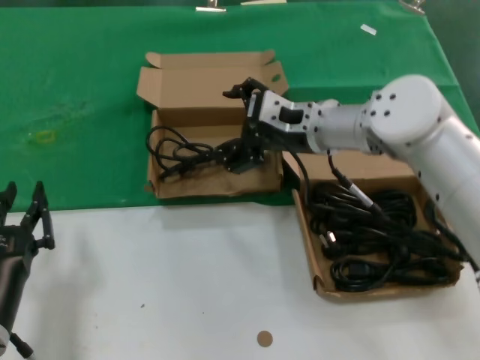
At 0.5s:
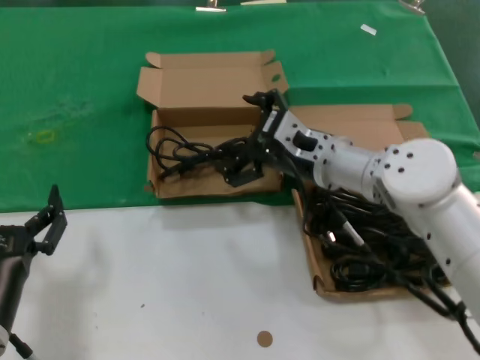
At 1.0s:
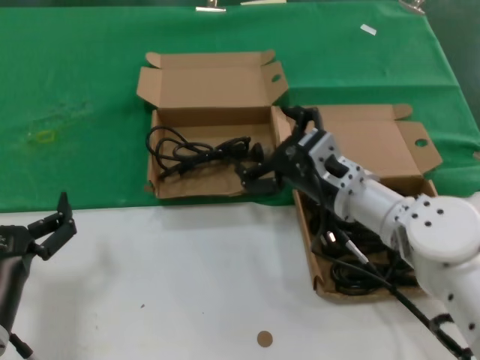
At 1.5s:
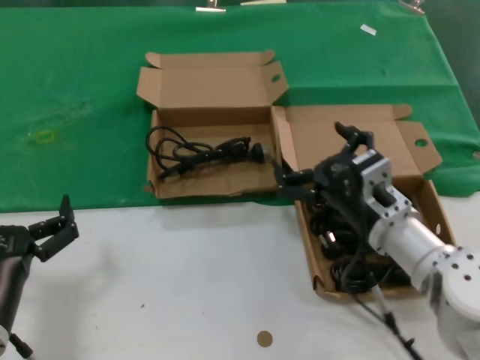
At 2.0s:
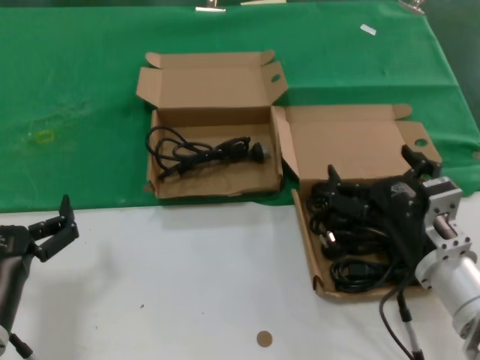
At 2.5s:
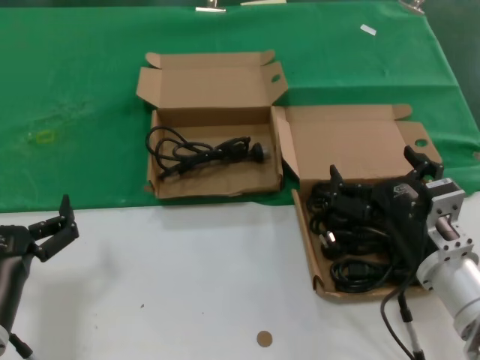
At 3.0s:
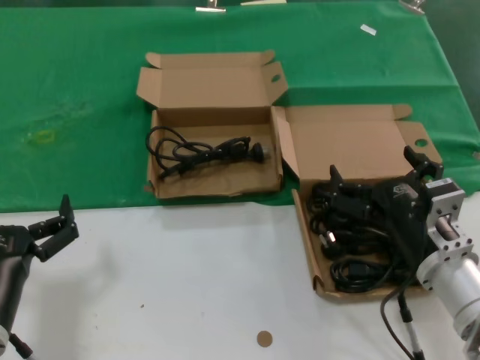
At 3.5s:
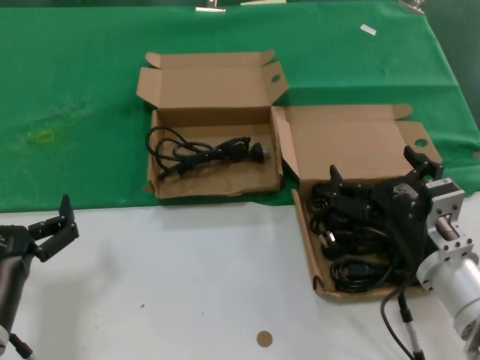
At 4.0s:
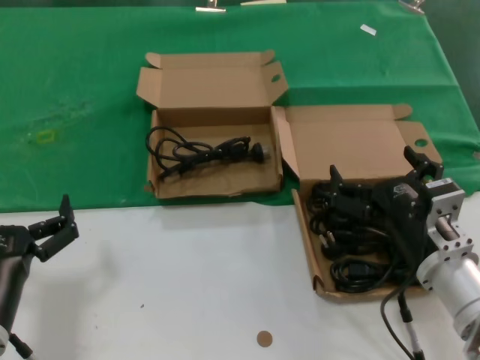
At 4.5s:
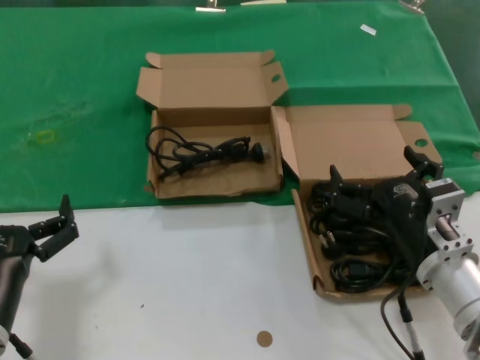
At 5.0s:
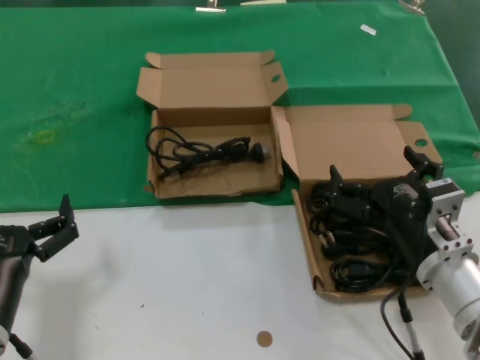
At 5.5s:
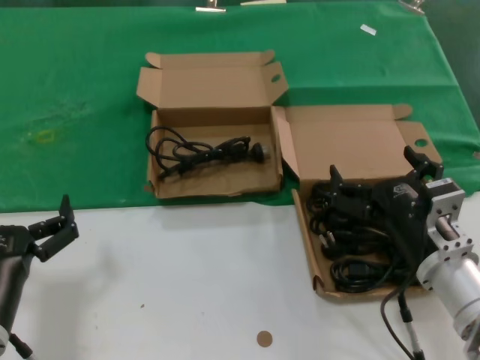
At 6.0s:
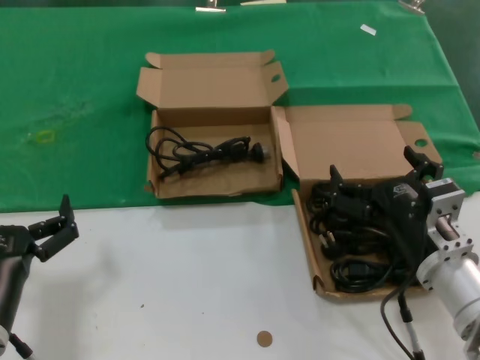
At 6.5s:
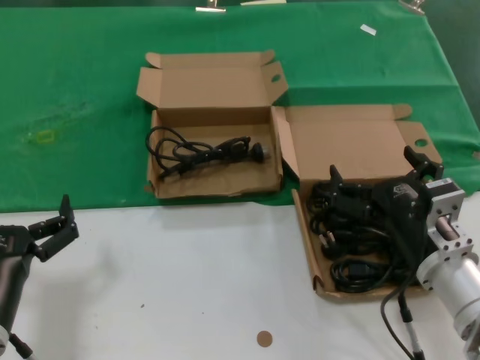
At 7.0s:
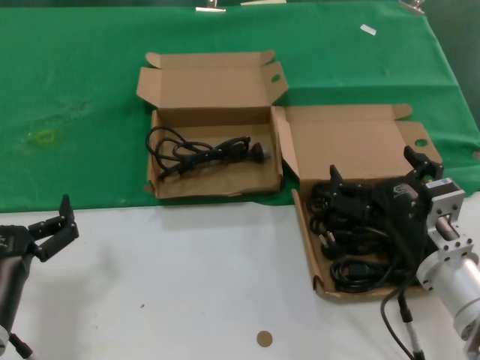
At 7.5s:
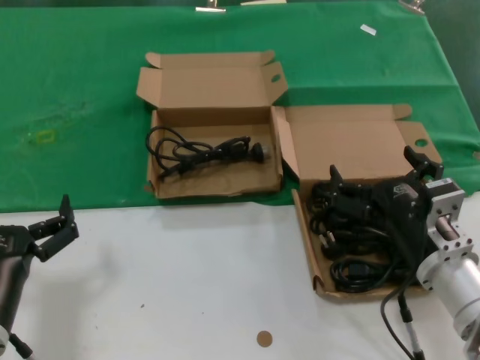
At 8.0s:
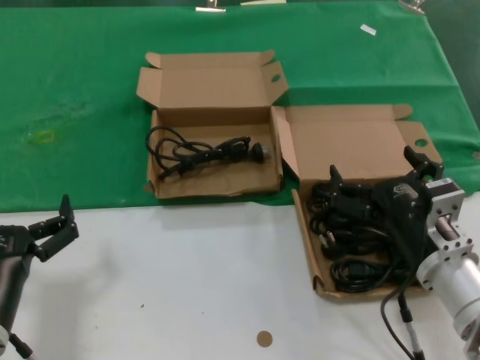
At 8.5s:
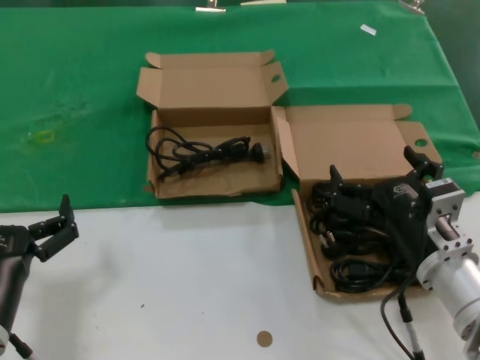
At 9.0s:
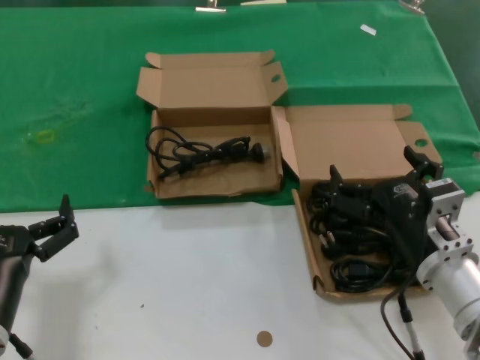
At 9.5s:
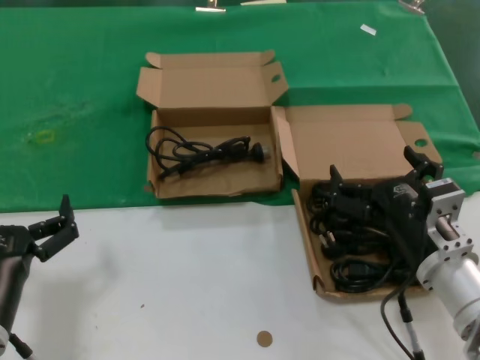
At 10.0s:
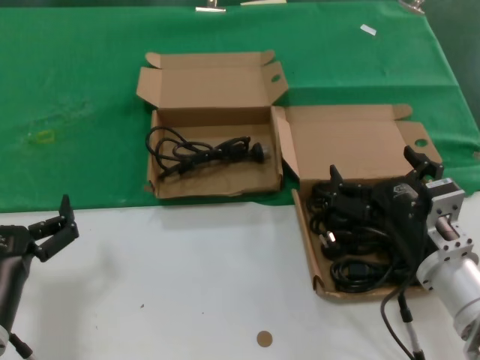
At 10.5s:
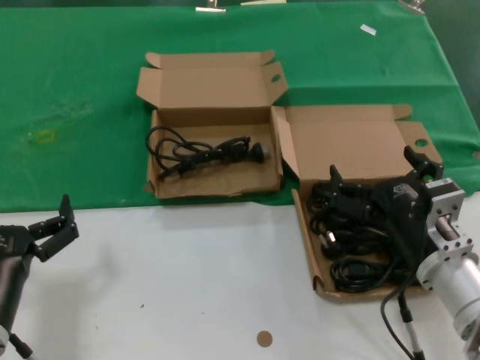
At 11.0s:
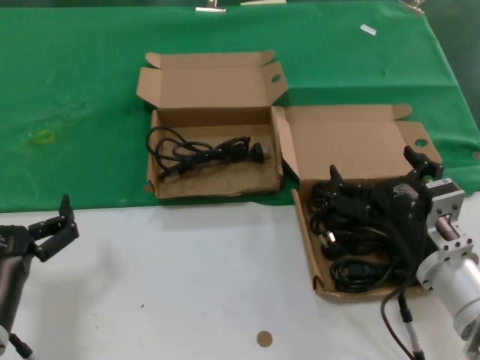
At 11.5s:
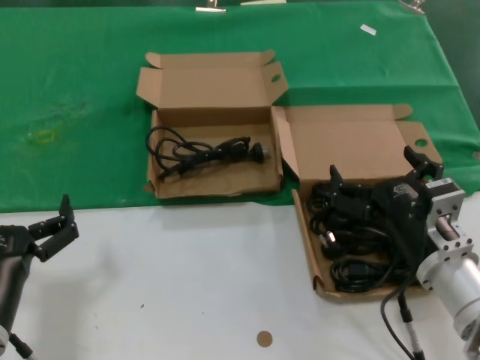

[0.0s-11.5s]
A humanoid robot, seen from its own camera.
Task of the whole recording: take the parts from the box containing them and put them into an empty box.
0.0s to 2.0s: The right hand heads backward and downward, covering roughly 25 cm.
2.0s to 11.5s: Both hands stay about where they are.

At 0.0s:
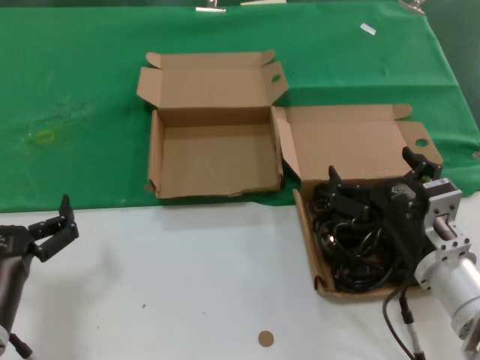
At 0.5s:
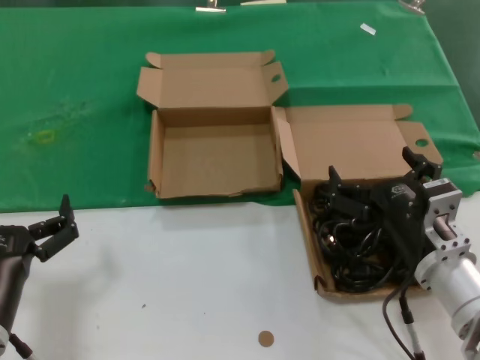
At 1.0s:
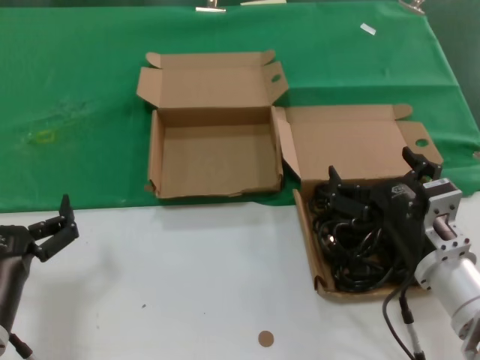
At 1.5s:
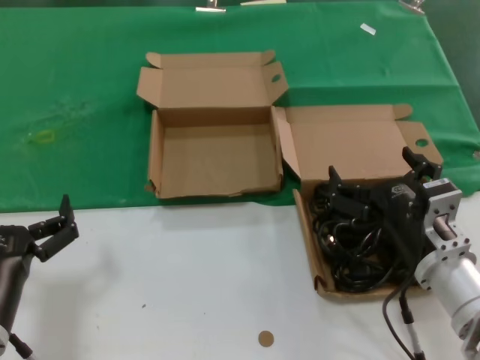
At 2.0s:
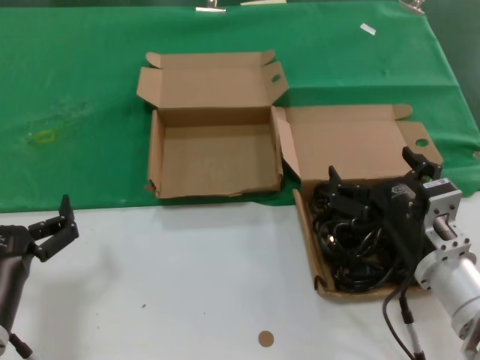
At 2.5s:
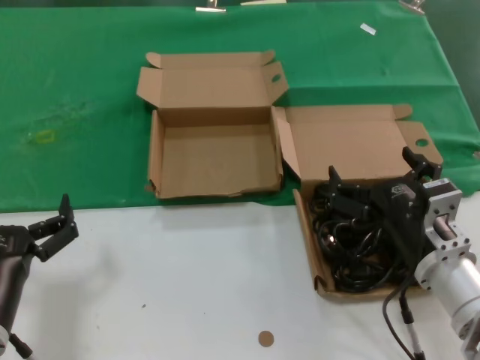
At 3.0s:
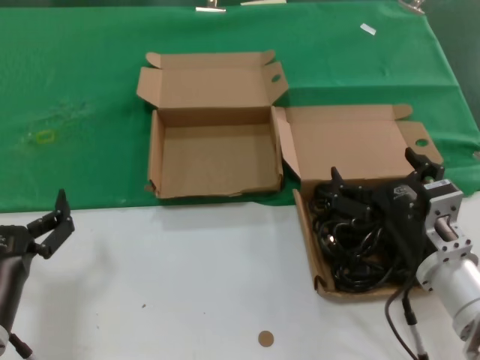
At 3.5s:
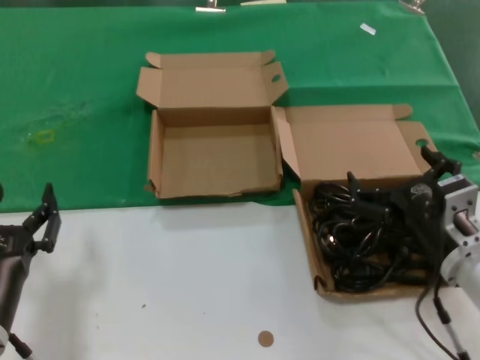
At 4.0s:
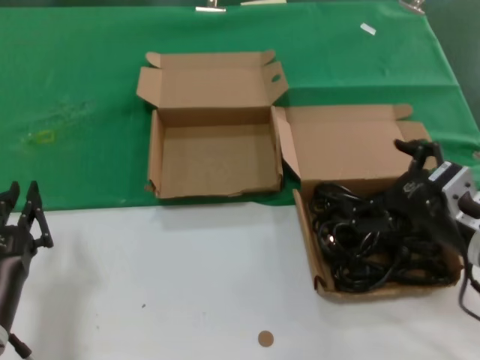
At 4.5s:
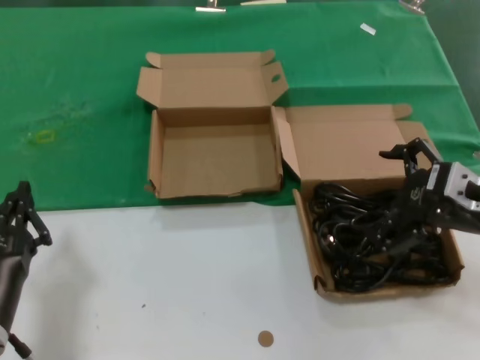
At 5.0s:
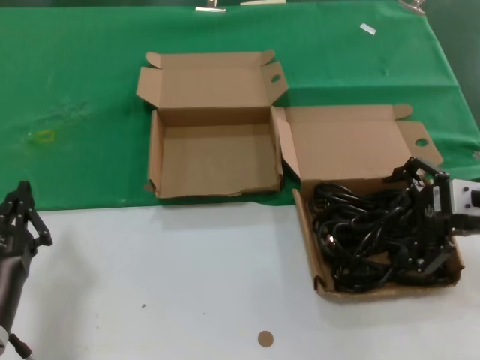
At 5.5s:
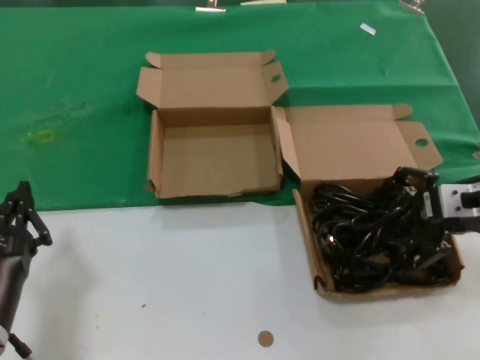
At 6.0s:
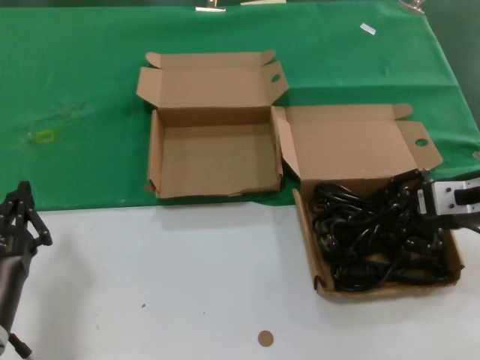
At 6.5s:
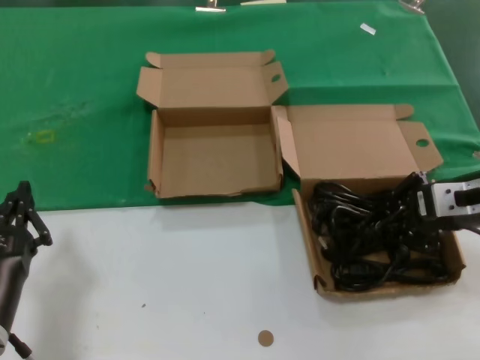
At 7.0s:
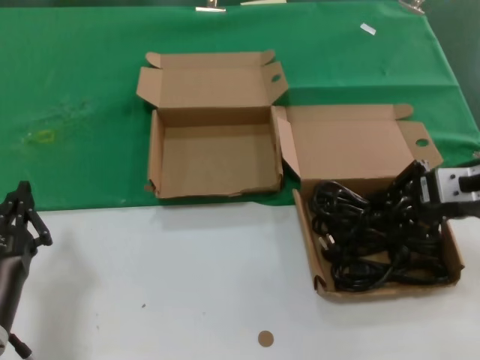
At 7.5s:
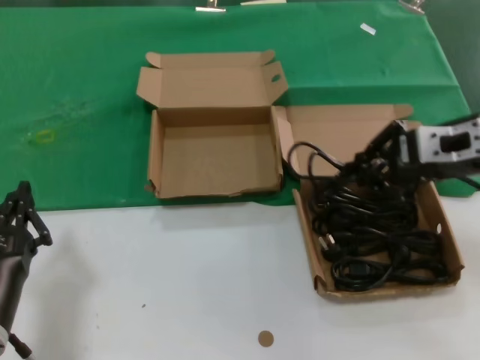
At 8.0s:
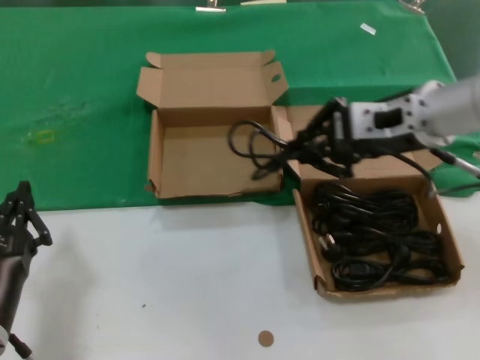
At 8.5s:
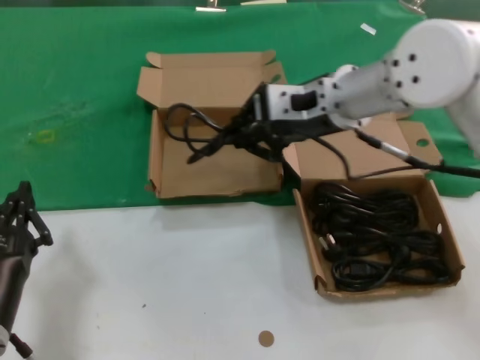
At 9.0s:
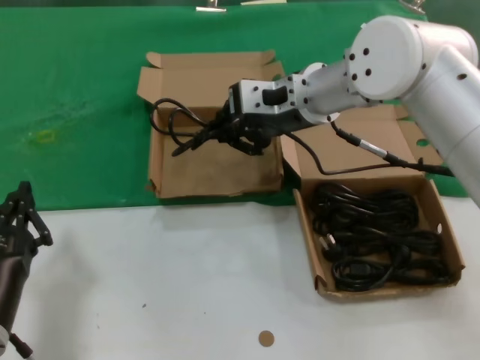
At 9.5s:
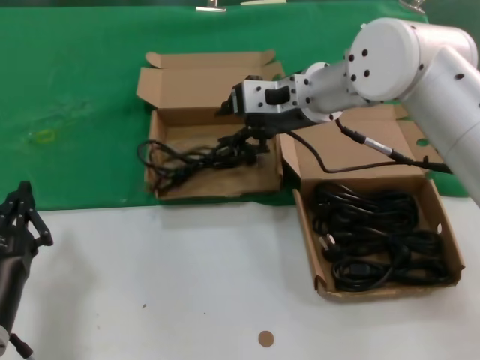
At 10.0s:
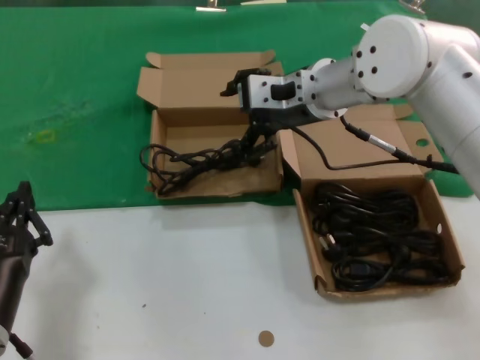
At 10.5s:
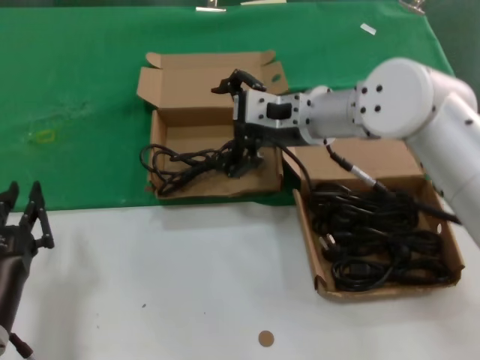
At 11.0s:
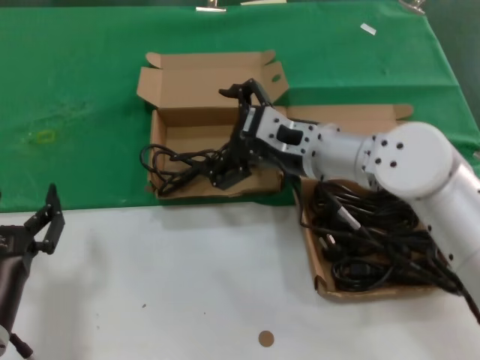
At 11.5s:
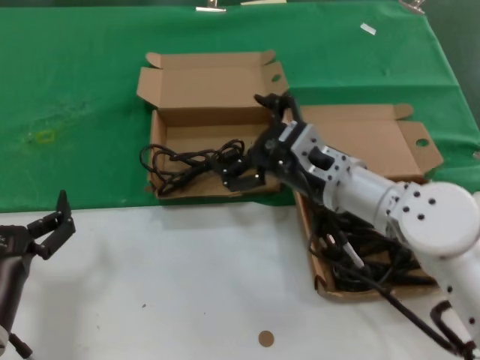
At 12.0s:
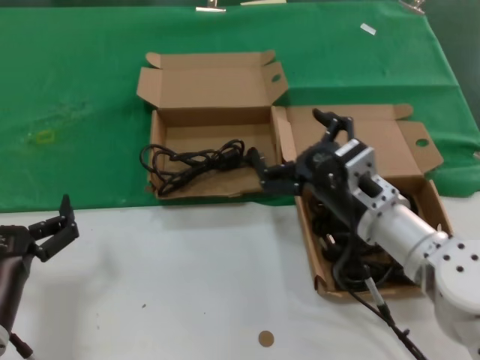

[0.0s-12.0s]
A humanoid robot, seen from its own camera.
Task of the whole recording: take the parts from the box containing them and put them into an empty box.
Step, 0.0s to 6.5s: Grasp the data cable.
Step, 7.0s to 9.5s: Place the data cable in the another box.
0.0s to 2.0s: Both hands stay put.
2.0s to 4.0s: The right hand shifts some 10 cm to the right and upward.
4.0s to 6.0s: The right hand moves forward and upward, some 10 cm.
6.0s to 8.0s: The right hand shifts about 15 cm to the left and upward.
8.0s to 10.0s: The right hand shifts approximately 15 cm to the left and forward.
10.0s to 12.0s: The right hand shifts approximately 20 cm downward and backward.

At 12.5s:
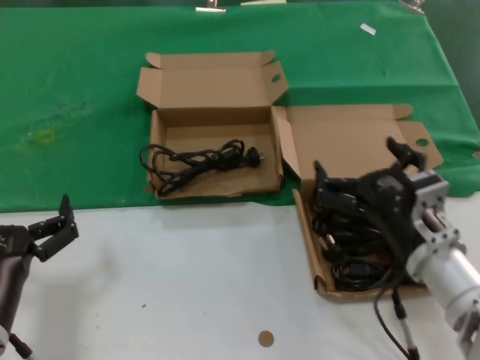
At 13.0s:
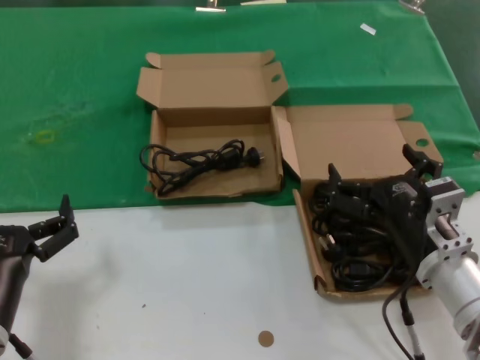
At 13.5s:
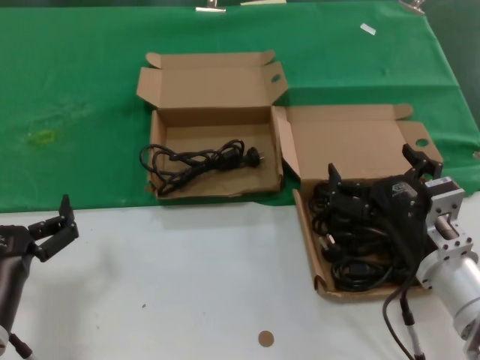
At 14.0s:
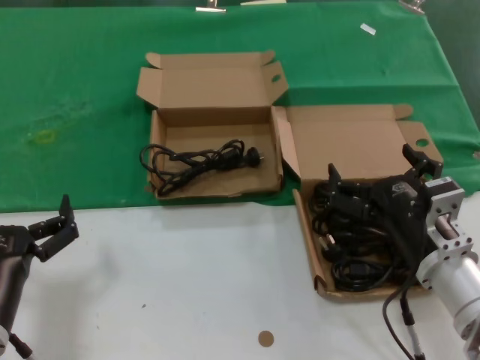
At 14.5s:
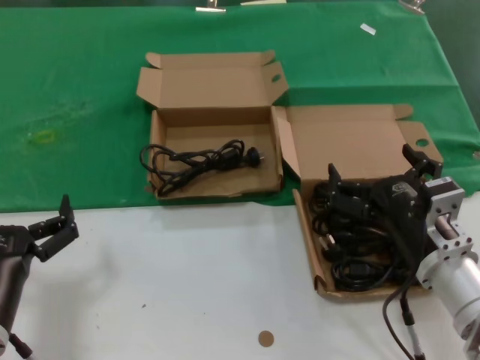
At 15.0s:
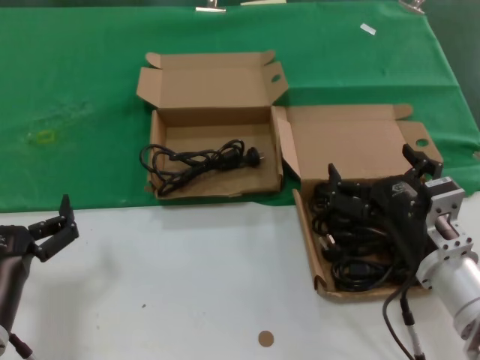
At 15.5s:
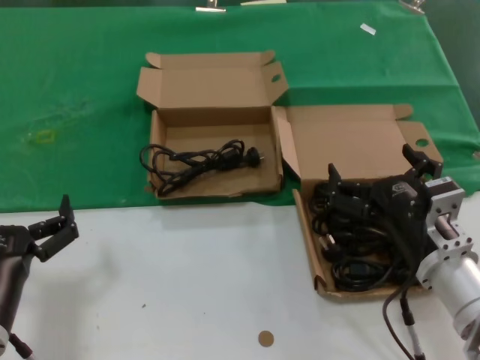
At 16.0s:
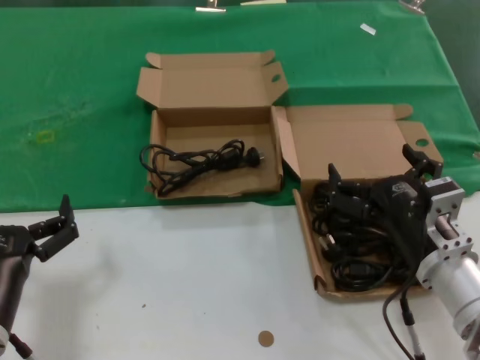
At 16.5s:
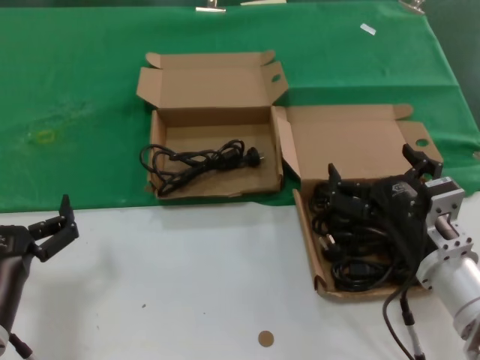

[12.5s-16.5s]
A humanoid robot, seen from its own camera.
Task of the whole recording: take the parts from the box containing them and put them into an empty box.
12.5s to 14.5s: There are only small adjustments of the hands.
14.5s to 16.5s: The two hands keep their place.
